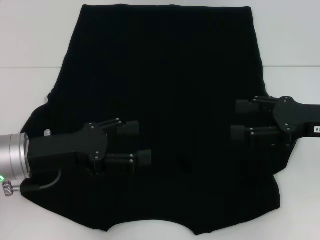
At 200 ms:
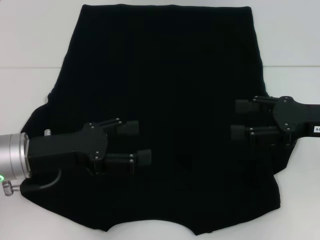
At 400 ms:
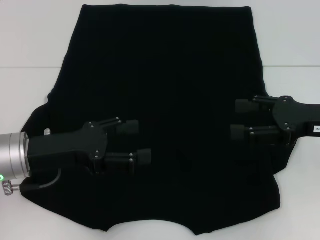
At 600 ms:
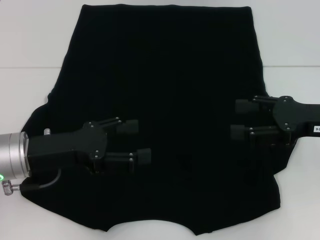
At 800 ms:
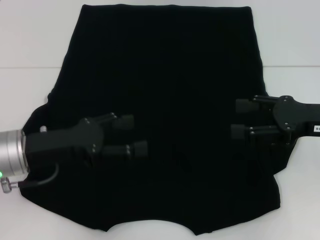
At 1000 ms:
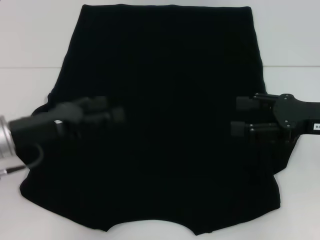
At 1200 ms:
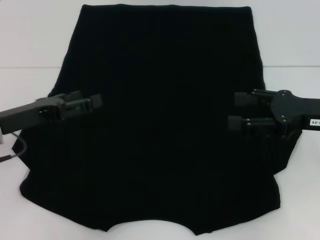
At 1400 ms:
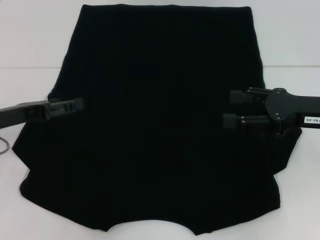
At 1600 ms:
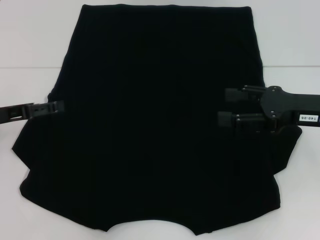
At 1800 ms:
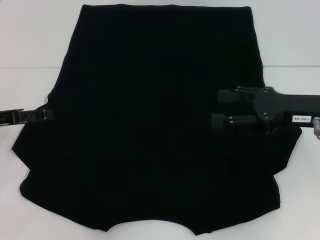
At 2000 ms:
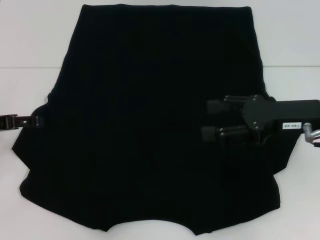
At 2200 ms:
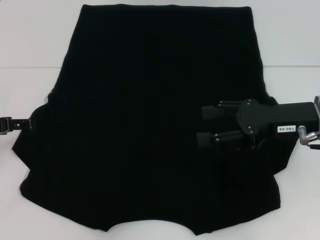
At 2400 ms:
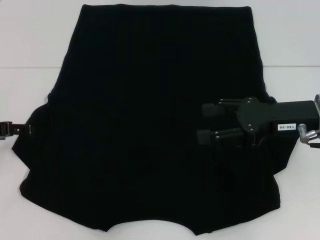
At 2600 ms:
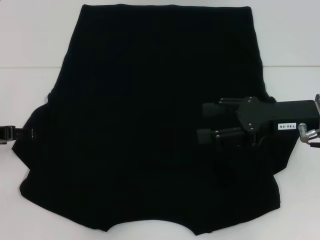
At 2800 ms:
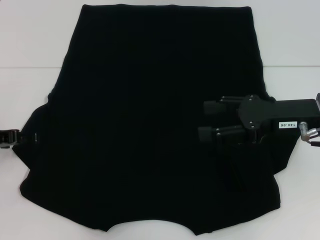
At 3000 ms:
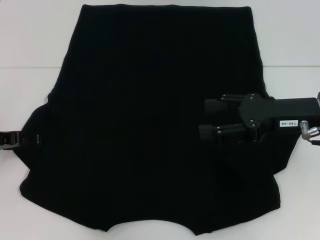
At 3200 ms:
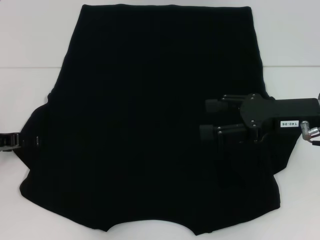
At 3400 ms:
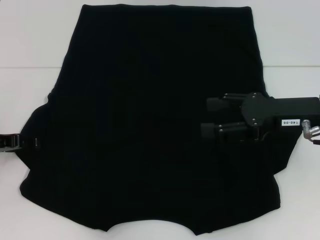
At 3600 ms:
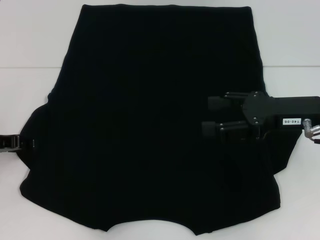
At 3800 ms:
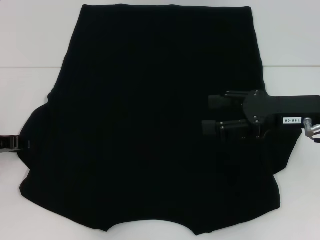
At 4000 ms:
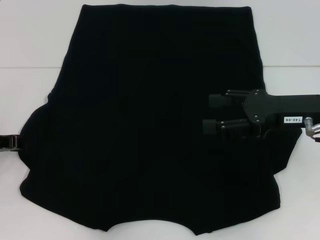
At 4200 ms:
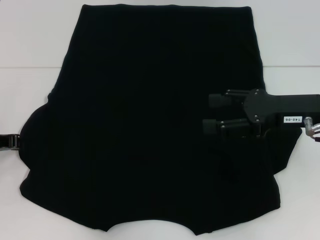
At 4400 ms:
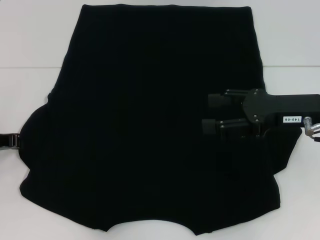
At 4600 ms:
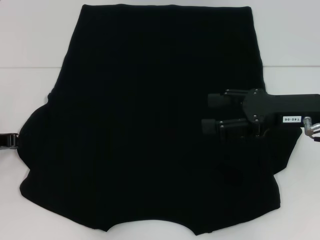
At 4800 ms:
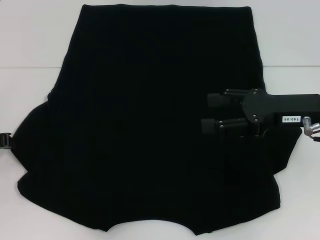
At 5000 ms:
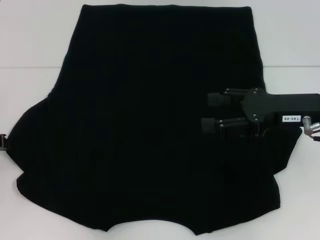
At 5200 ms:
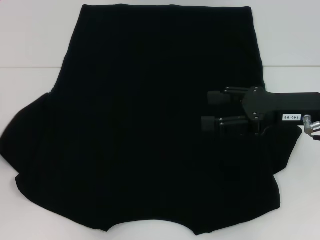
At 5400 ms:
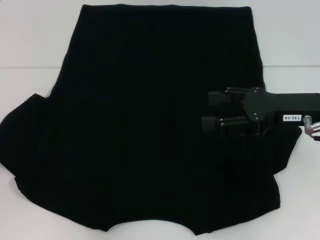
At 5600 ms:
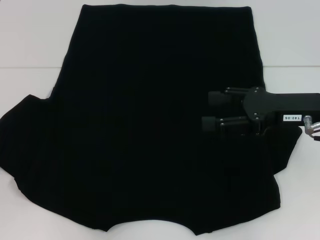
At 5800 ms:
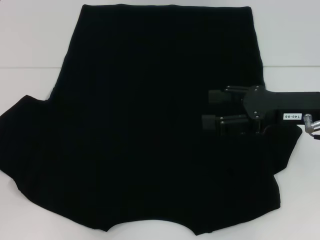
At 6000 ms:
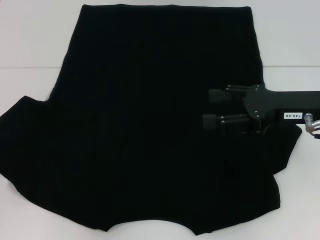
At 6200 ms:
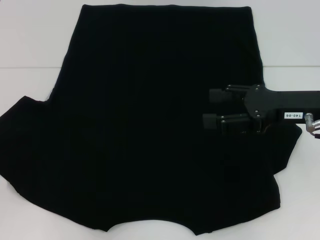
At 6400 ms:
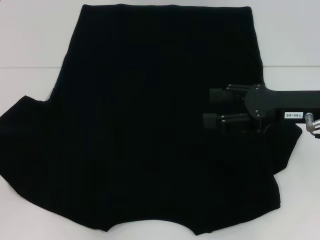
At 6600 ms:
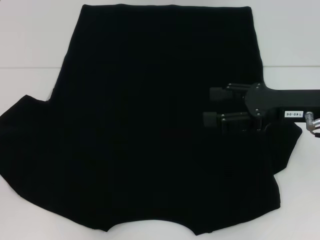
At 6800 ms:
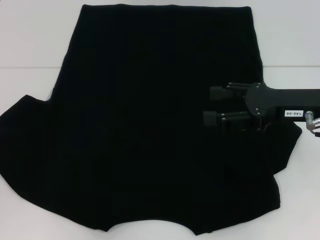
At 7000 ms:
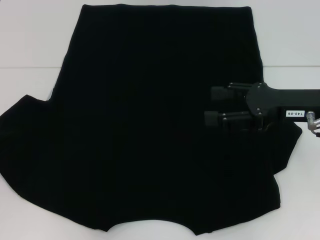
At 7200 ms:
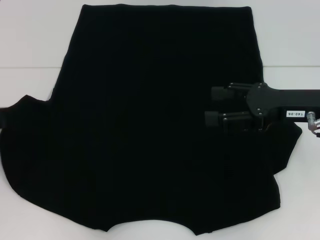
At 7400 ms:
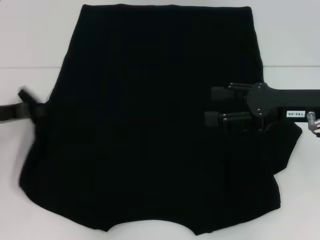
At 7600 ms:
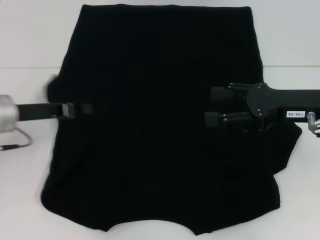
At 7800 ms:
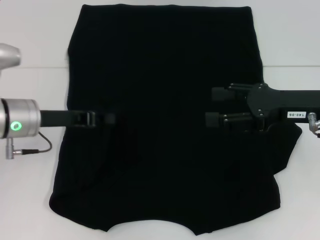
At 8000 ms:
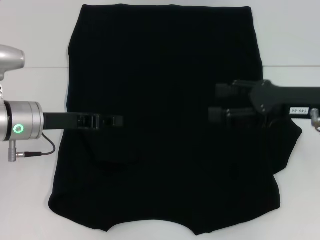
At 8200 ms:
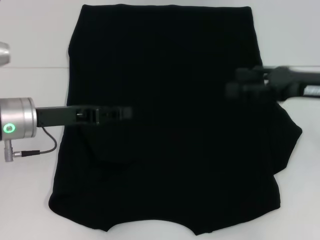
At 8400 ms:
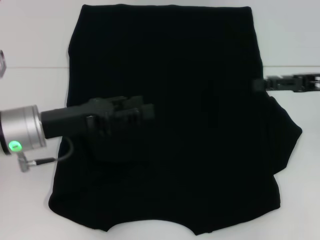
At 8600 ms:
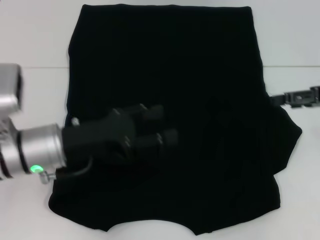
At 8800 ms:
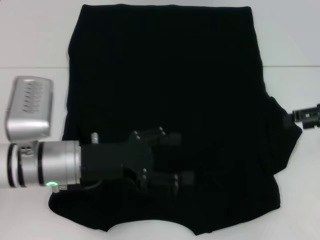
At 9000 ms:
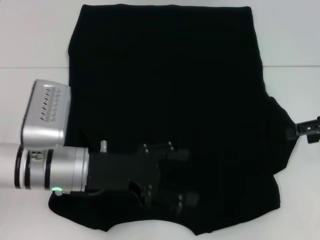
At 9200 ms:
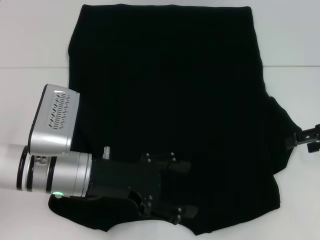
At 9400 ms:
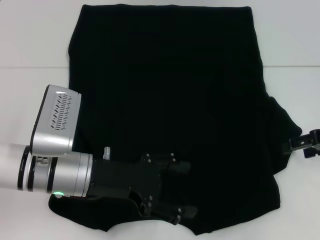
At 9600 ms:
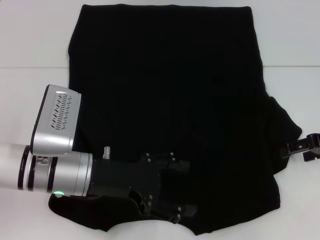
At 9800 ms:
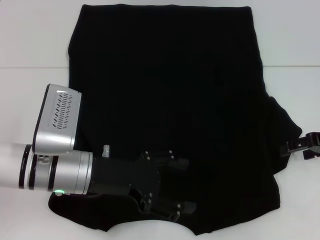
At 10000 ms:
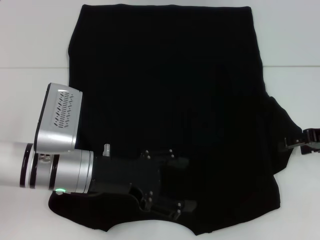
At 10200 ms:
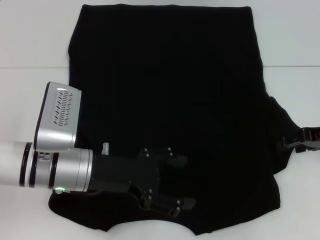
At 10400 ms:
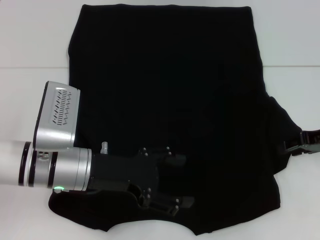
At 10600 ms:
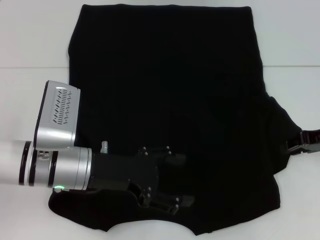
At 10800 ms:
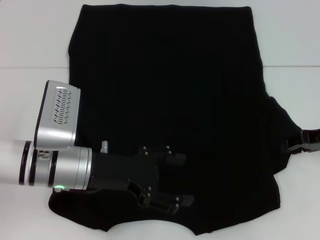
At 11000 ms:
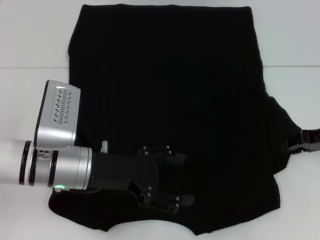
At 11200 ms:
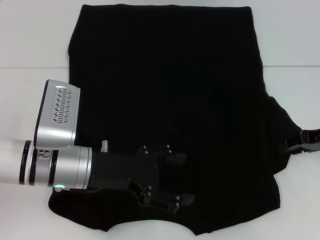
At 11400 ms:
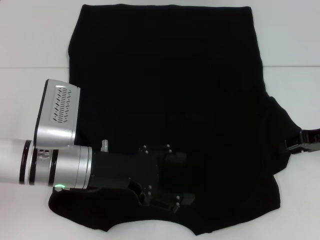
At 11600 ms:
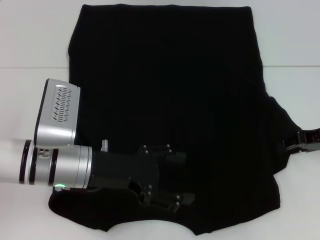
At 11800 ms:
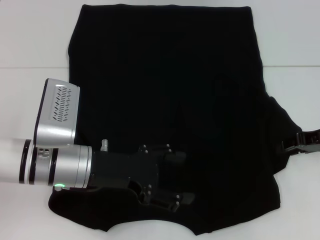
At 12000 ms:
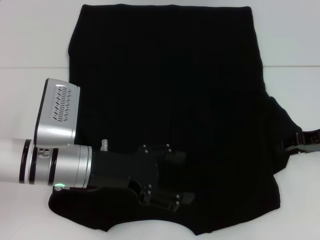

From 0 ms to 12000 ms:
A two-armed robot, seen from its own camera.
Step, from 0 ms to 8400 ms: Fold the bottom left sleeve with your left hand.
From 0 ms to 1600 ms: The left gripper heads to the left, covering approximately 10 cm.
From 4400 ms to 6000 ms: The left gripper is displaced to the left by approximately 5 cm.
From 6000 ms to 7600 ms: The left gripper goes approximately 10 cm to the right.
From 7600 ms to 9000 ms: The right gripper travels to the right by some 10 cm. Meanwhile the left gripper heads to the right and backward, covering about 10 cm, and opens up.
From 9000 ms to 10400 ms: The grippers make only small movements.
From 10400 ms to 12000 ms: Both grippers stay about where they are.

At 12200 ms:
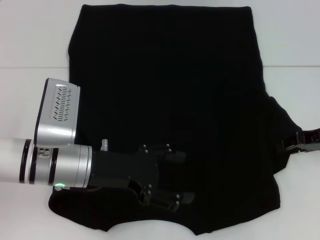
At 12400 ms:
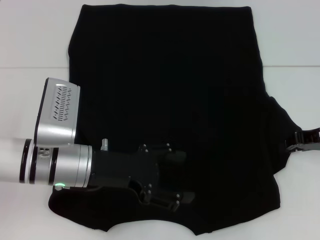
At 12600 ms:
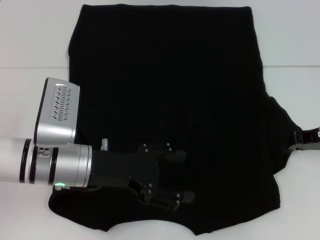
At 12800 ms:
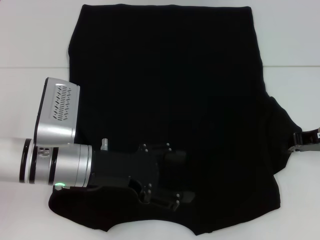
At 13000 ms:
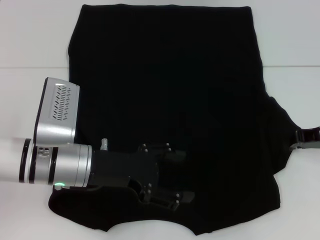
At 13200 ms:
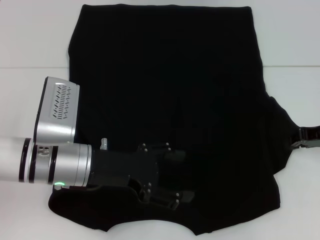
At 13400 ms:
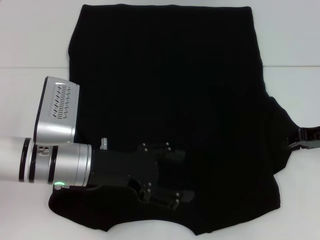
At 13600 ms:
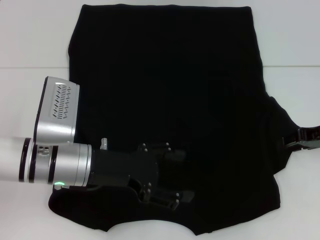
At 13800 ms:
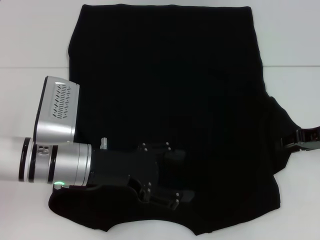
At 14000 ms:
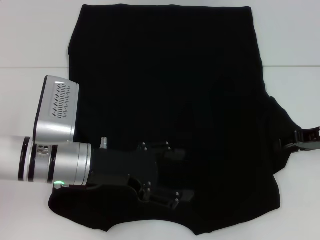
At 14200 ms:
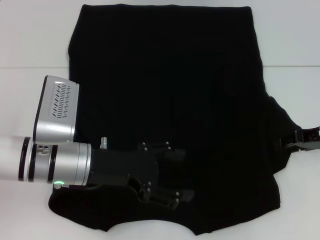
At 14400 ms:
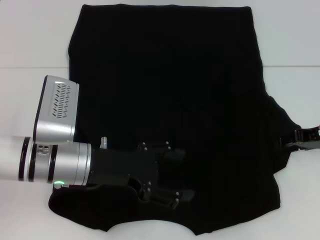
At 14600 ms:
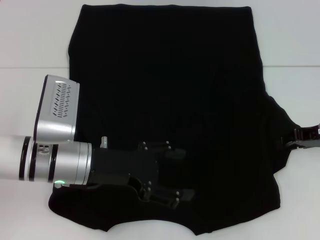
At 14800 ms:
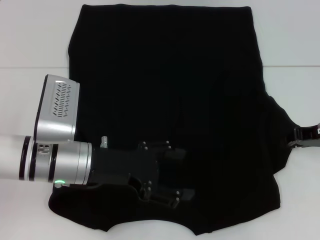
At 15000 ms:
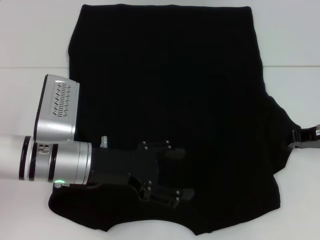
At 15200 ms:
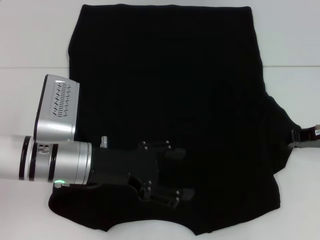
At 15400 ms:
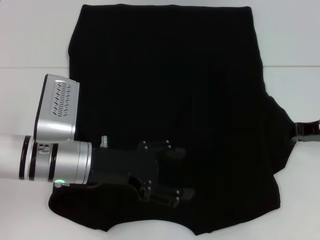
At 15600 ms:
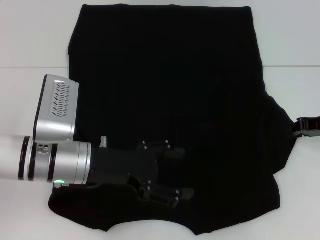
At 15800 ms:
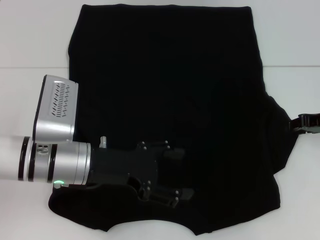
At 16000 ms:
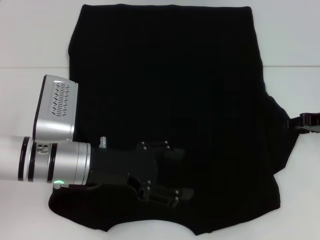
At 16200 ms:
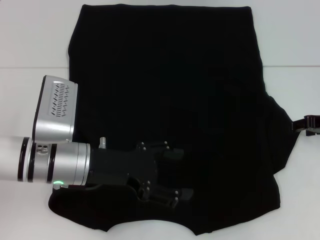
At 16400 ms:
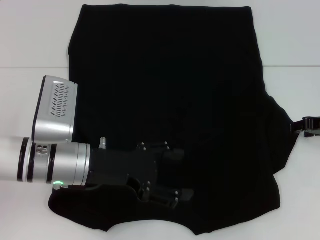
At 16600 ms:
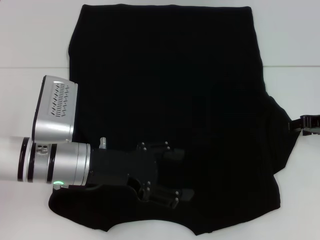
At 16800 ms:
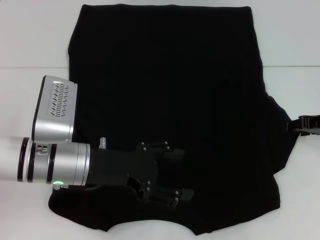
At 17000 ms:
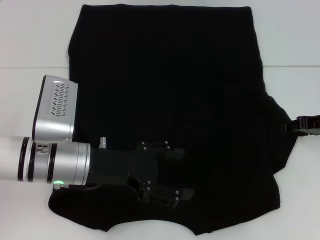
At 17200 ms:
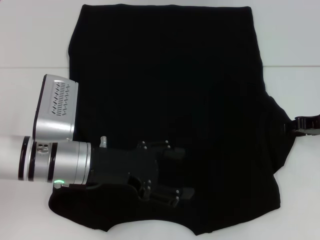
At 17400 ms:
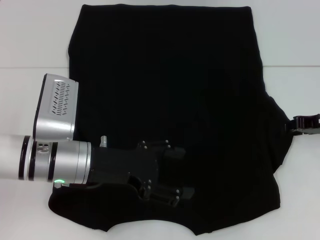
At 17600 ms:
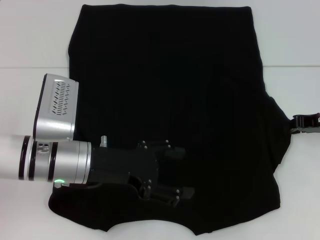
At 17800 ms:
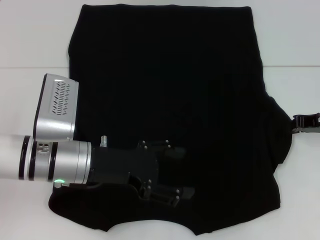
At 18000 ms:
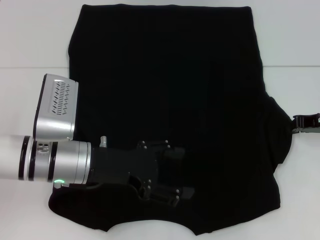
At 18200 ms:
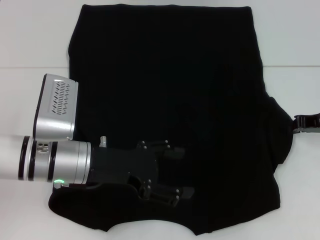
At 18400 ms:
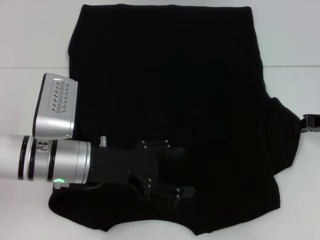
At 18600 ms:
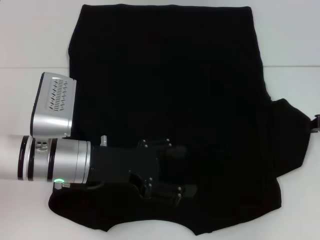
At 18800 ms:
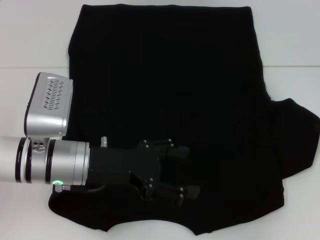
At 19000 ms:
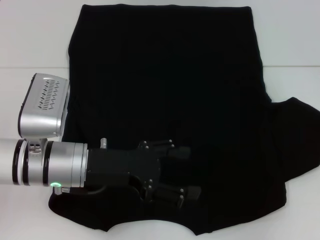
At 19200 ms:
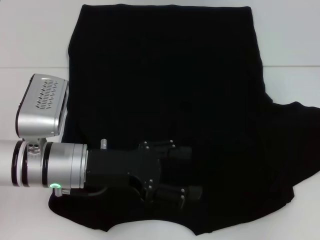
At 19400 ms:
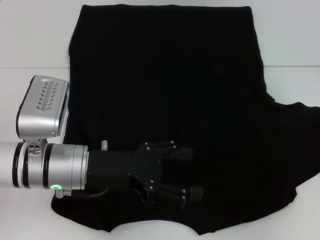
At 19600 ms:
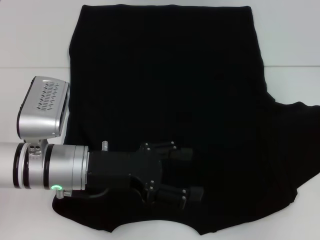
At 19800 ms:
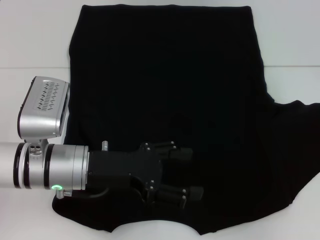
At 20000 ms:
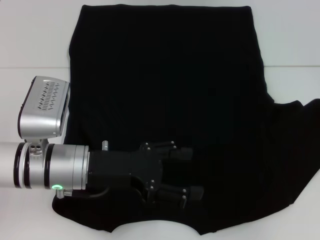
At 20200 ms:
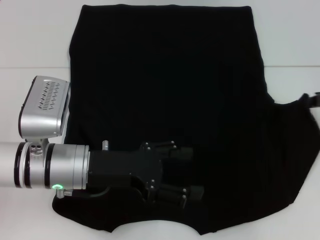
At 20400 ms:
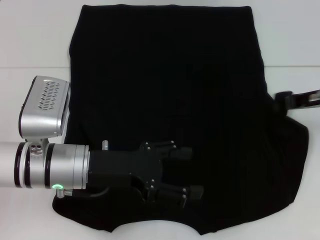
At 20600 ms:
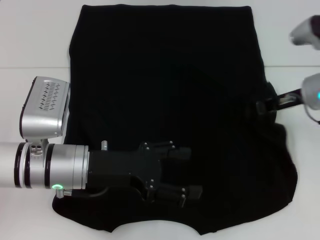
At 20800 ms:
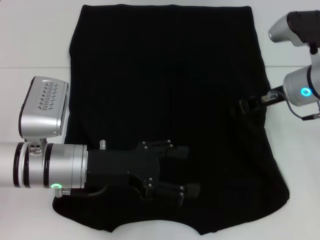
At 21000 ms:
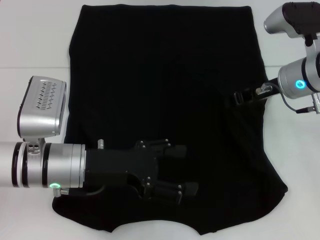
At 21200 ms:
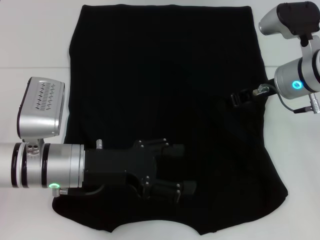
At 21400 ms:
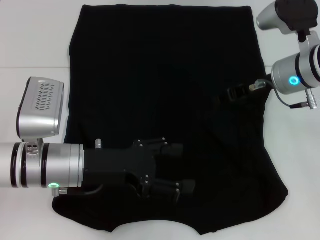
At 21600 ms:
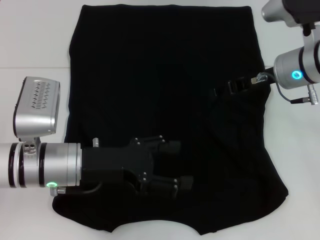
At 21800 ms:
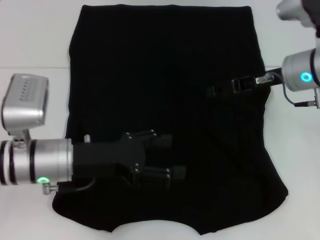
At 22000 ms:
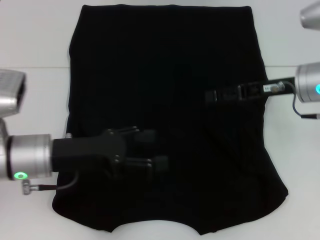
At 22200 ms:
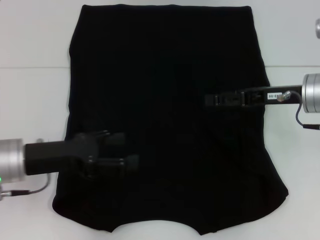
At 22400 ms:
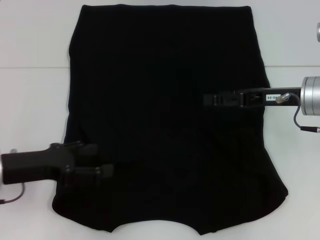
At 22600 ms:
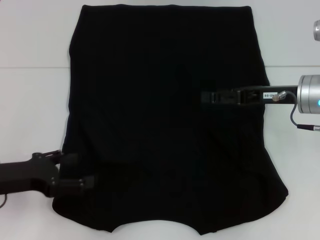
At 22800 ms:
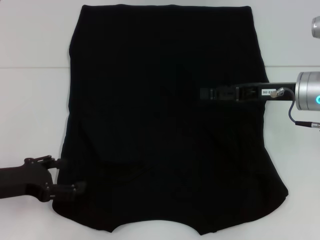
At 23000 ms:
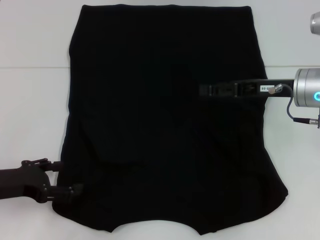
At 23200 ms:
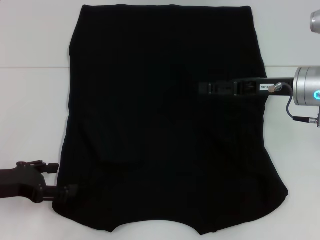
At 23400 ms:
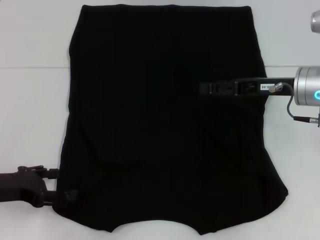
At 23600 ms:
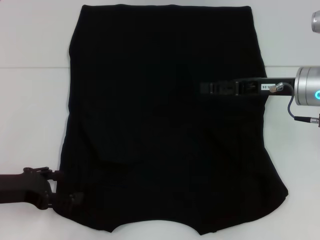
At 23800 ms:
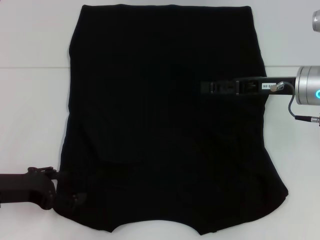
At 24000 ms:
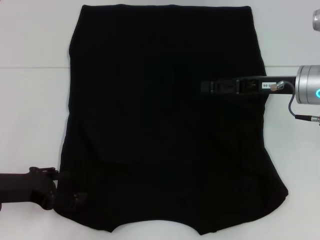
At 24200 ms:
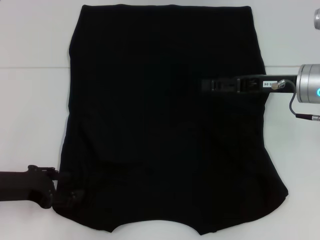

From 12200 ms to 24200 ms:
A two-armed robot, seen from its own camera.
Step, from 12200 ms to 22200 ms: Fold the bottom right sleeve with your right hand.
From 15200 ms to 16600 ms: The right gripper opens its fingers.
From 16600 ms to 18200 ms: The right gripper closes.
From 18200 ms to 19800 ms: The right gripper moves to the right, about 5 cm.
From 19800 ms to 21200 ms: The right gripper heads to the left, covering some 20 cm.
From 21200 ms to 22600 ms: The right gripper ends up approximately 5 cm from where it was, and opens its fingers. The left gripper is displaced to the left by some 10 cm.
From 22600 ms to 24200 ms: The grippers make only small movements.
